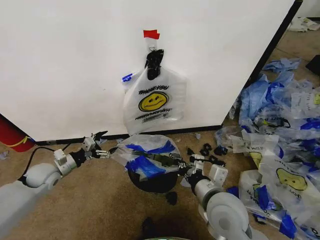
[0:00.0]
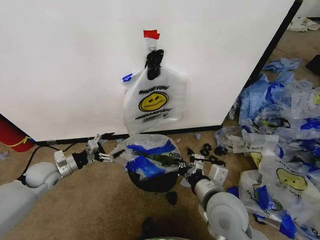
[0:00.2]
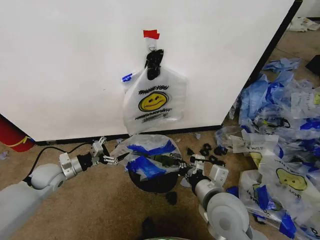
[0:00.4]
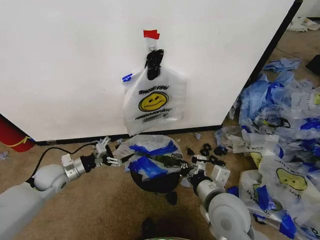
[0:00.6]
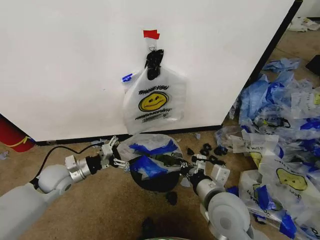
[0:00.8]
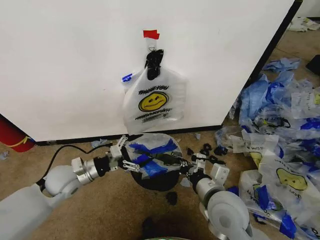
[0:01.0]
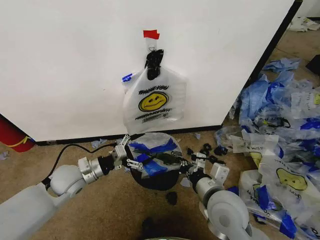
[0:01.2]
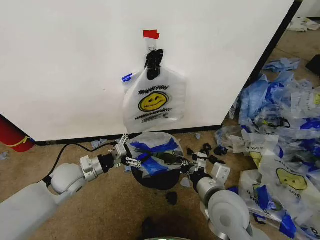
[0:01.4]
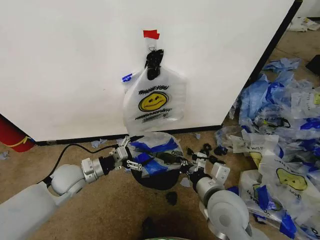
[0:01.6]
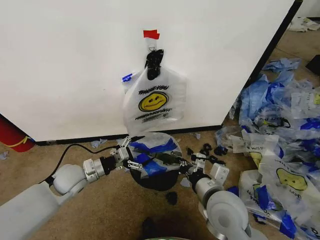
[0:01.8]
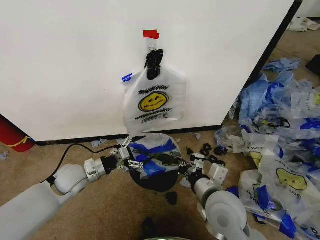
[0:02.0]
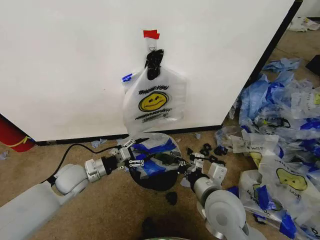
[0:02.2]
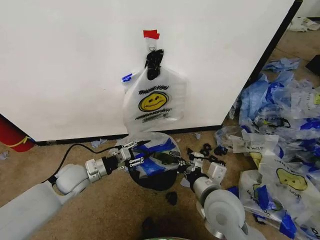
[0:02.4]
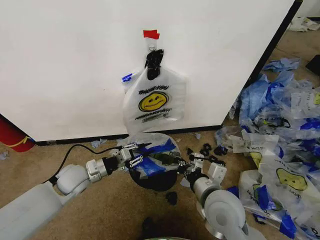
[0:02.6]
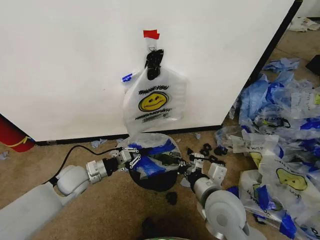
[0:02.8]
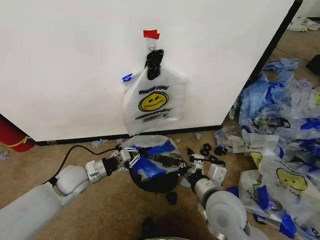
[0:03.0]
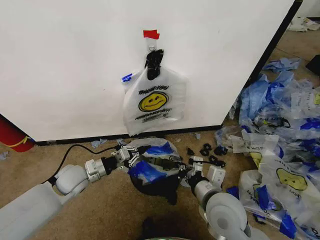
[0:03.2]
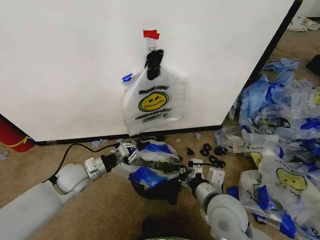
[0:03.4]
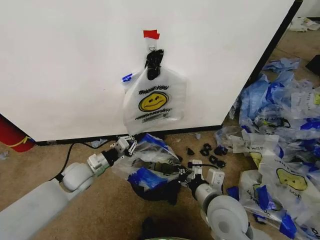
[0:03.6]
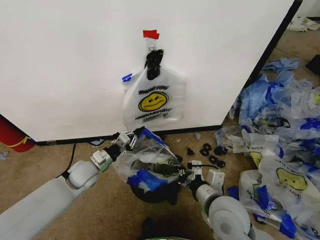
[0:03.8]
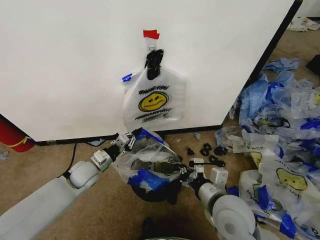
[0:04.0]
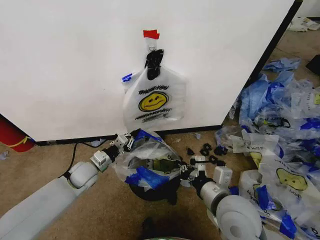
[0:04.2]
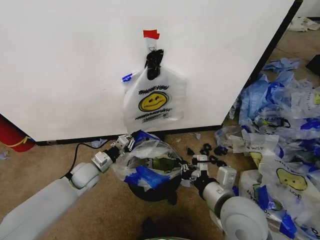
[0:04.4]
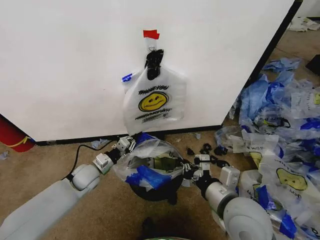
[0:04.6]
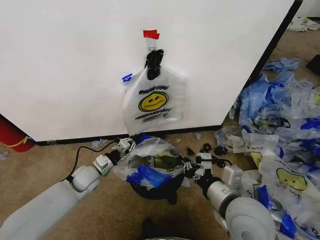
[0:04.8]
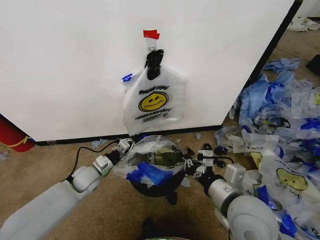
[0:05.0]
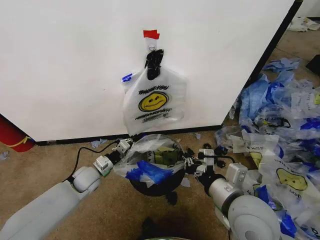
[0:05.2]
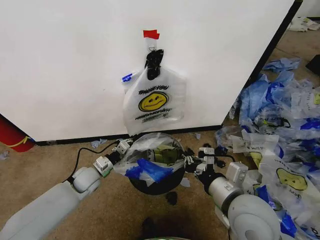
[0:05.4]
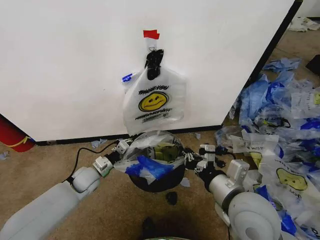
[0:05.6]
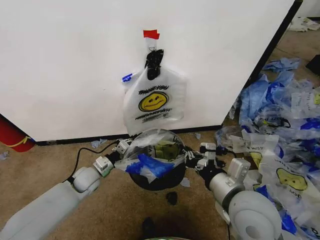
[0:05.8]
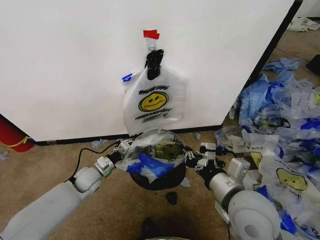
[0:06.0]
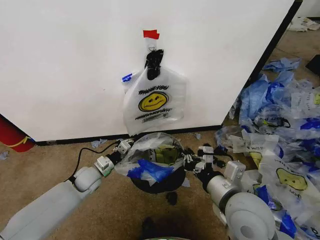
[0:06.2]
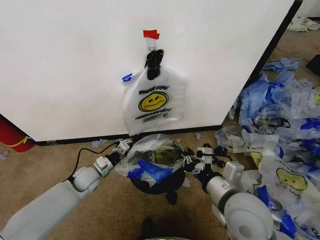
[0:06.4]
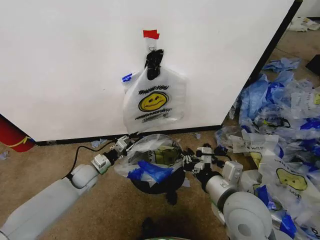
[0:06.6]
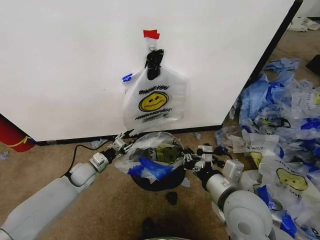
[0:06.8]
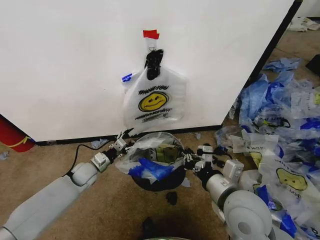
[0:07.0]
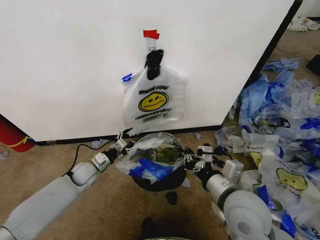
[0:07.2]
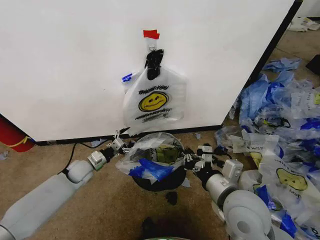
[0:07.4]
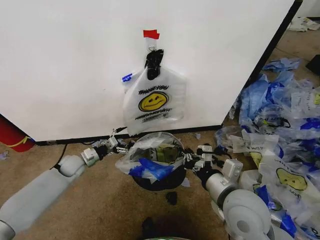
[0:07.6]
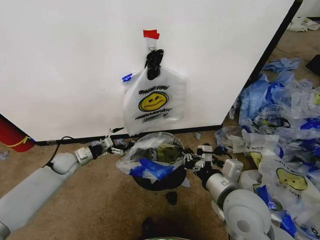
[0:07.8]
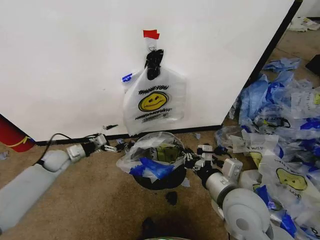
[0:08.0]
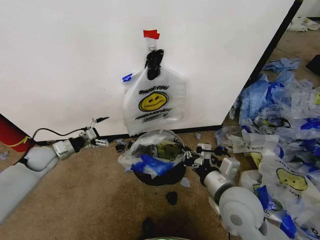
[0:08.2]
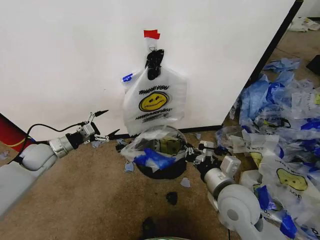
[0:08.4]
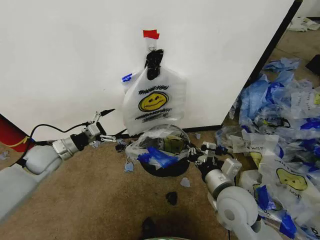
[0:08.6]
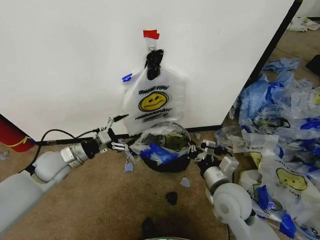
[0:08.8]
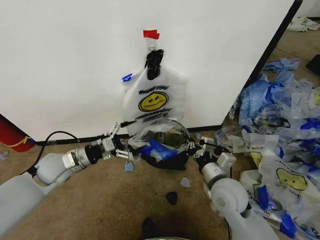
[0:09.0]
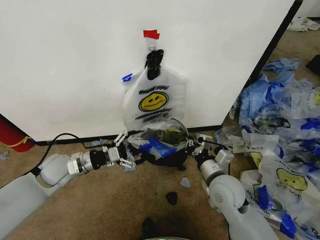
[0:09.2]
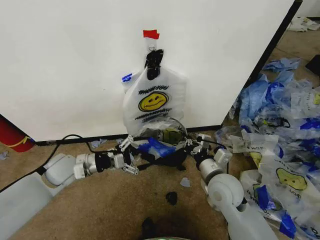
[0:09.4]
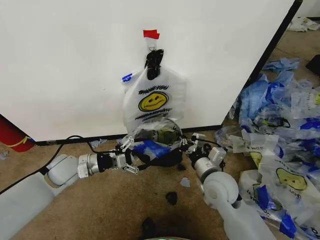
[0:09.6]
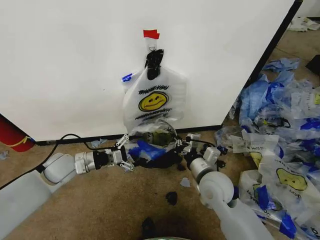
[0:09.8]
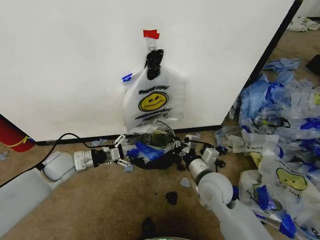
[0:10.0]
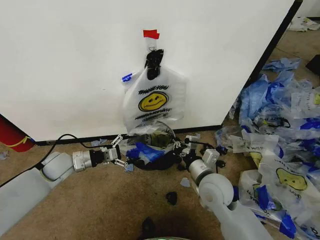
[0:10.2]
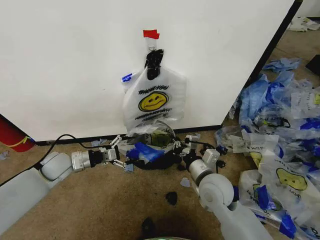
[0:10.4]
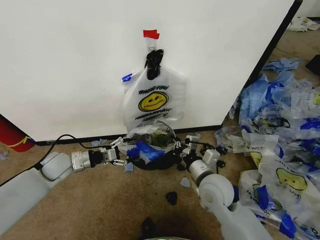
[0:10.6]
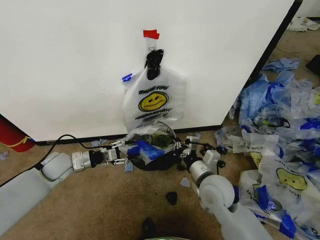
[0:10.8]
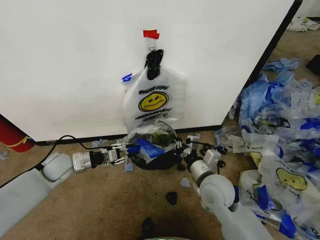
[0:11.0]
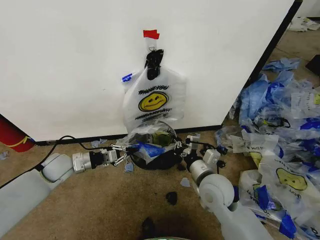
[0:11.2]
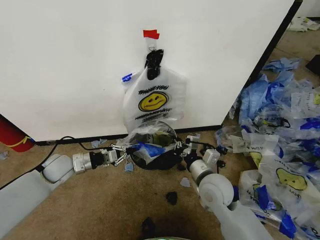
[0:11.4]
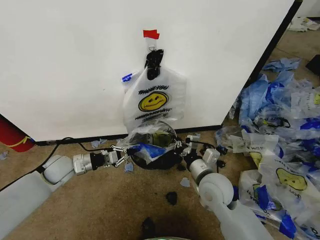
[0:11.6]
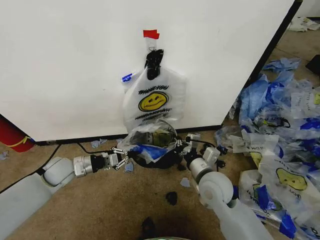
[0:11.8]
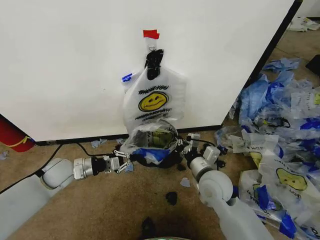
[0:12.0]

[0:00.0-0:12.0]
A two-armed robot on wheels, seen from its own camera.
Task of the whole recording: Pick up the garbage bag from the wall and place it over the trash bin.
0:00.0 to 0:01.6: The left gripper shifts about 10 cm to the right.
0:01.6 to 0:03.0: The left gripper closes its fingers.
0:03.0 to 0:04.4: The left gripper ends up some 5 cm from where it was.
0:04.4 to 0:06.0: The grippers move only a little.
0:06.0 to 0:07.6: The left gripper is displaced to the left and forward by roughly 10 cm, and opens up.
0:07.6 to 0:09.0: The left gripper goes roughly 15 cm upward and backward; the right gripper shifts approximately 10 cm forward and downward.
0:09.0 to 0:10.4: The left gripper ends up about 5 cm from where it was.
0:10.4 to 0:12.0: The left gripper closes up.

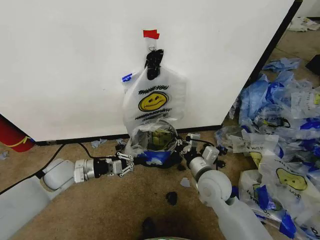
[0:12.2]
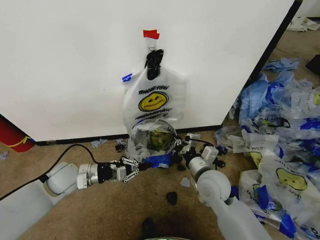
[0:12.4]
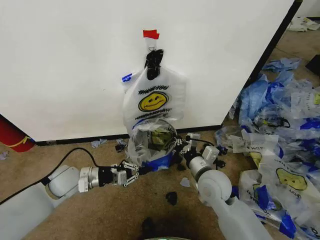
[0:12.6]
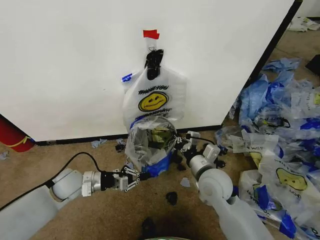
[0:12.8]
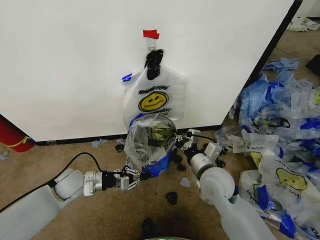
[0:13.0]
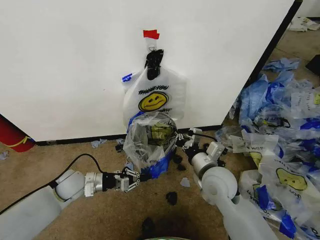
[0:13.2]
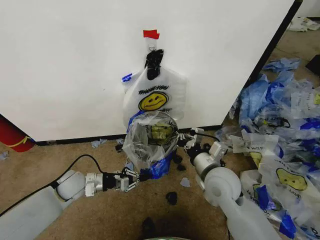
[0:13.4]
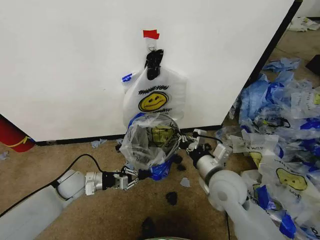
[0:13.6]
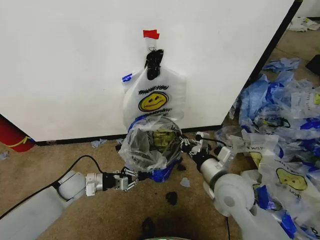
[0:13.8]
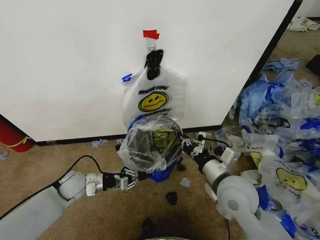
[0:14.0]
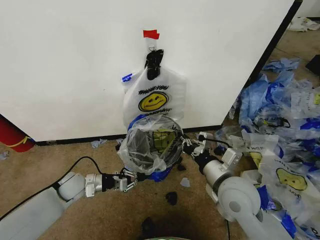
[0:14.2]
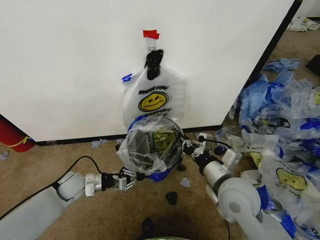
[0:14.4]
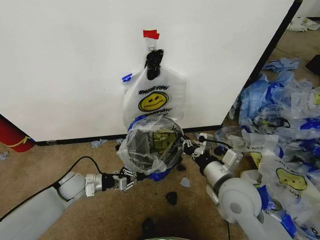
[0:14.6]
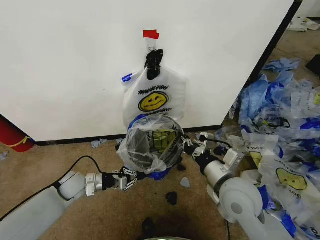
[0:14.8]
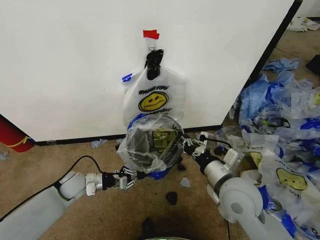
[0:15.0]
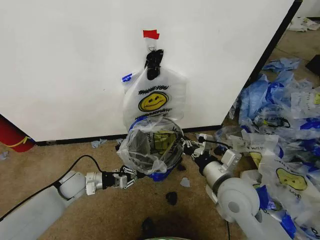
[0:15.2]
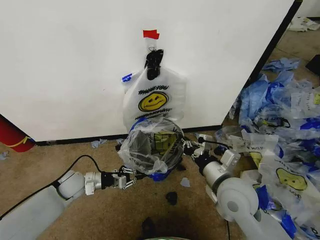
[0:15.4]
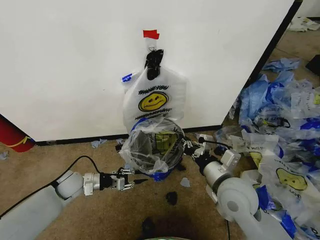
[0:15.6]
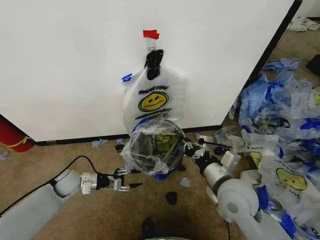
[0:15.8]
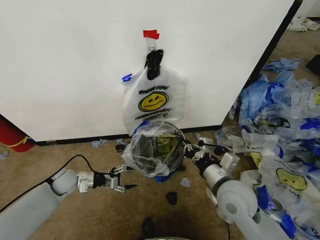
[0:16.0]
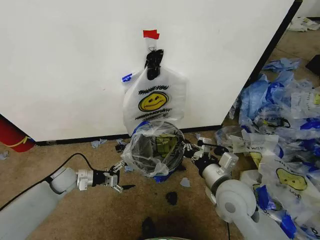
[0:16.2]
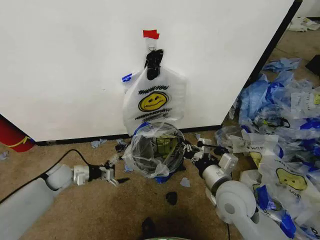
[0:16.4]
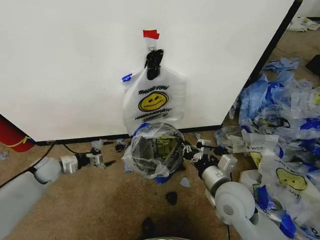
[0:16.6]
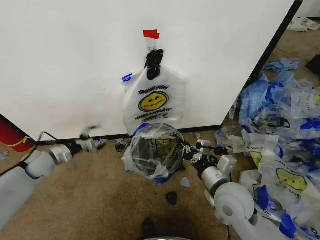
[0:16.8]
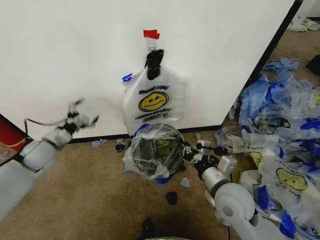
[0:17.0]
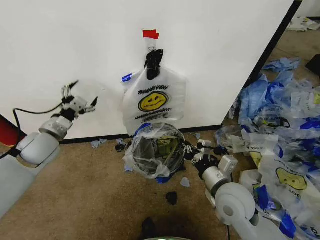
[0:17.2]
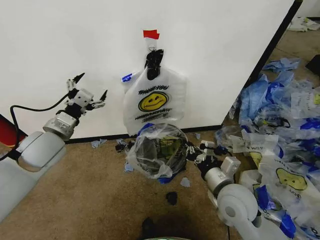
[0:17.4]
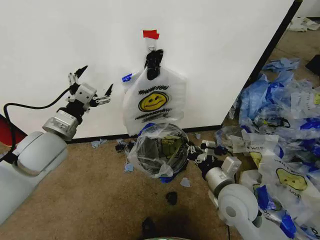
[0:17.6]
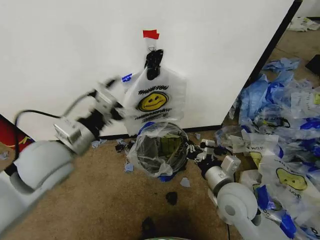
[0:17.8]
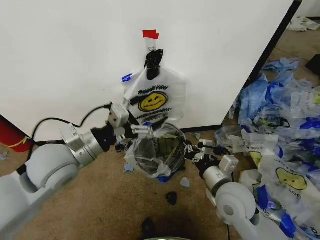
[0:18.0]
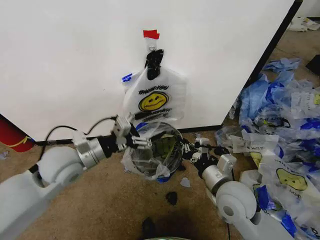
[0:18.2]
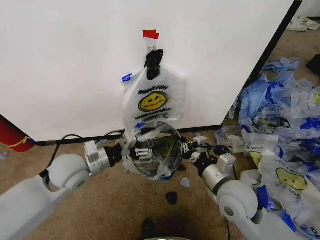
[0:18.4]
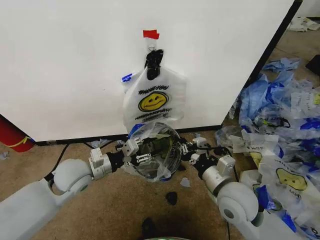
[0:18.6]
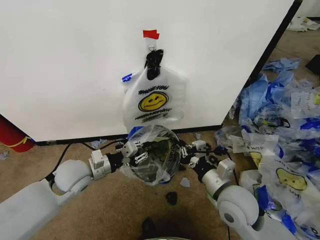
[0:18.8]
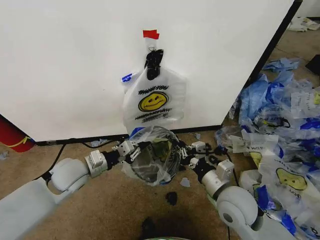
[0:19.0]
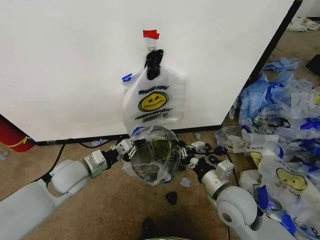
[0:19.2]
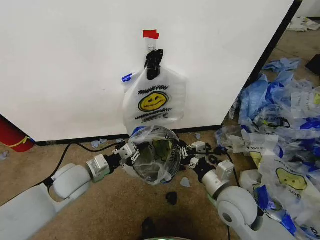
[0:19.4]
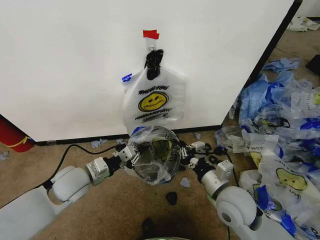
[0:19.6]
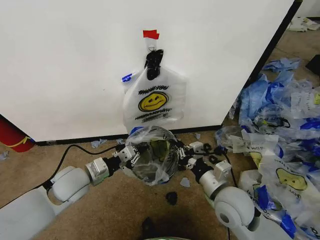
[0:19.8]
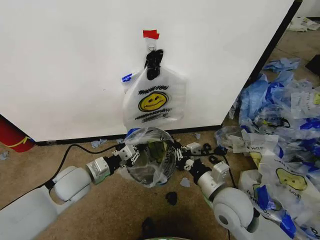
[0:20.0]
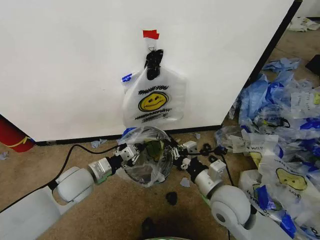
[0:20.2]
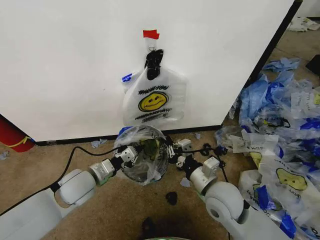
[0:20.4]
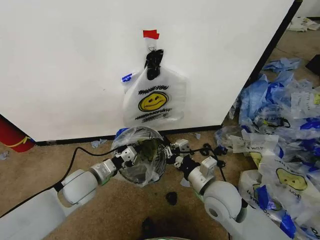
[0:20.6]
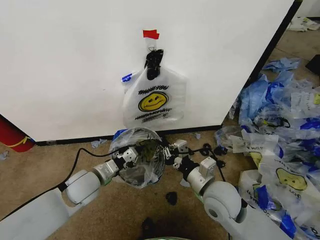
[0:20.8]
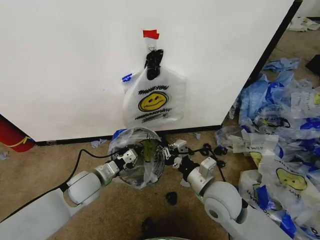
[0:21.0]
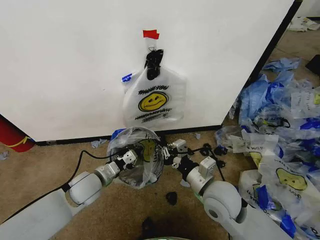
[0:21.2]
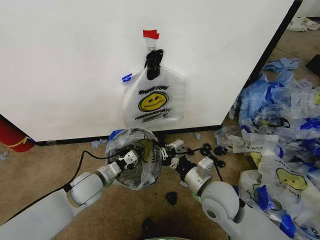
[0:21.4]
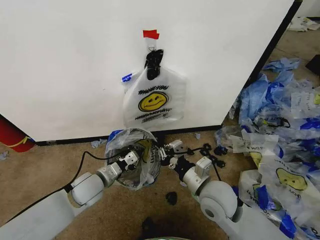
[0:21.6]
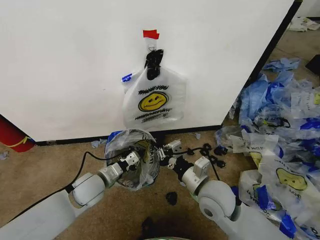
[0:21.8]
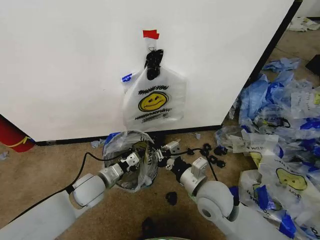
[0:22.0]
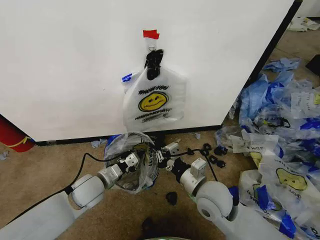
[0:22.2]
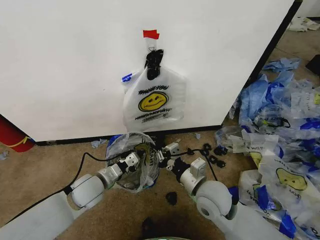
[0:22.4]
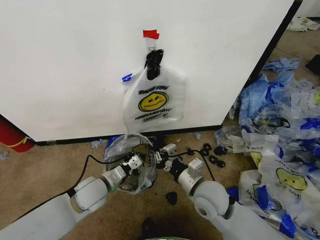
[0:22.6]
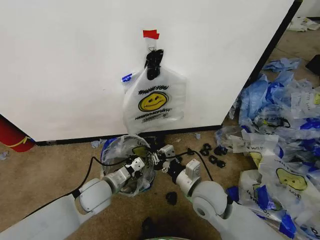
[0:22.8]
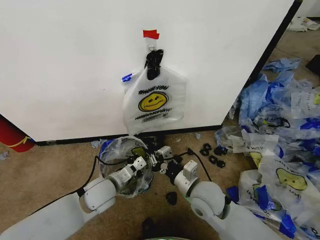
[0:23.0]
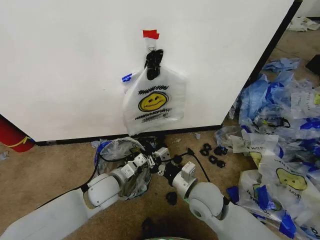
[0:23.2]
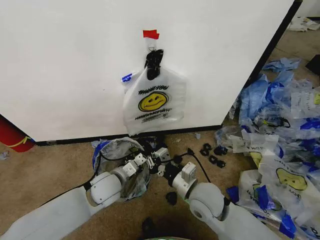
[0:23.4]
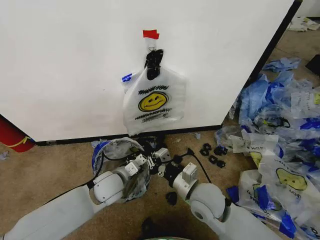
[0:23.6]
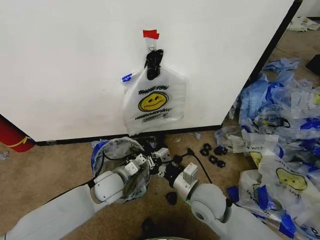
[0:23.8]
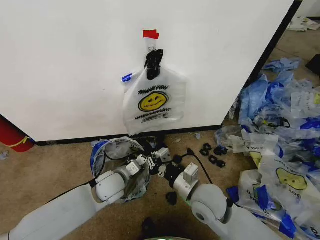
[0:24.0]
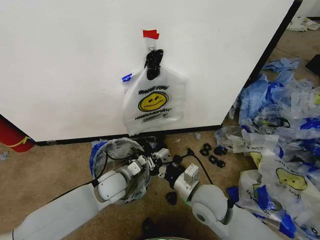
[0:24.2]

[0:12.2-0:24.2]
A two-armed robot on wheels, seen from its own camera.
Task of the whole recording: Pick up the garbage bag from the wall and place it over the trash bin.
0:12.2 to 0:13.8: The left gripper is displaced downward by about 10 cm; the right gripper shifts by about 5 cm.
0:13.8 to 0:15.2: The grippers stay close to where they were, moving slightly.
0:15.2 to 0:16.6: The left gripper moves to the left, about 10 cm, and opens its fingers.
0:16.6 to 0:18.2: The left gripper moves to the right, upward and backward, about 25 cm.
0:18.2 to 0:19.8: The left gripper shifts about 10 cm downward, and closes.
0:19.8 to 0:21.2: The left gripper moves downward, approximately 5 cm.
0:21.2 to 0:22.6: The grippers make only small movements.
0:22.6 to 0:24.2: The left gripper is displaced to the right by about 5 cm.
